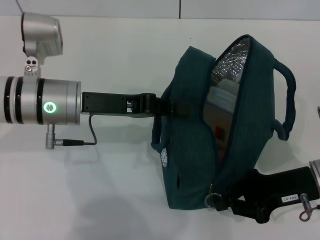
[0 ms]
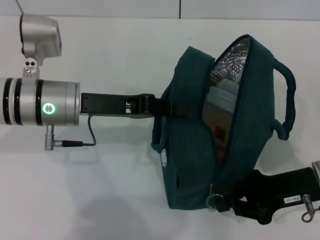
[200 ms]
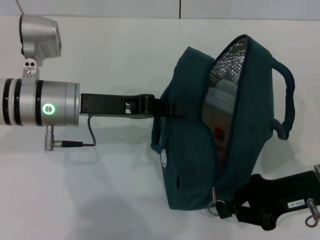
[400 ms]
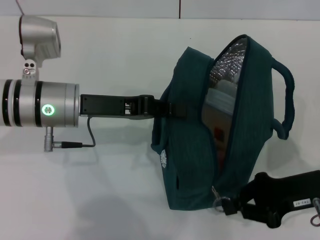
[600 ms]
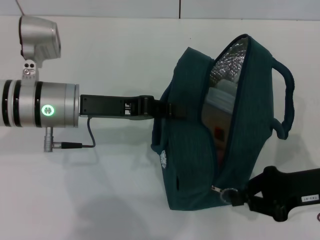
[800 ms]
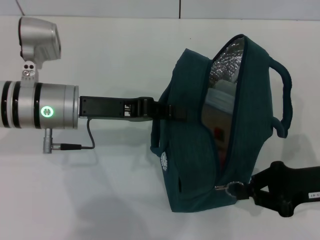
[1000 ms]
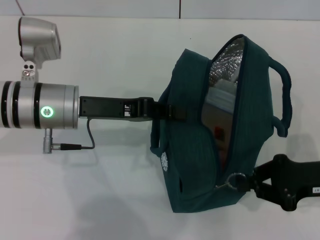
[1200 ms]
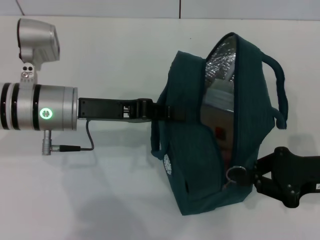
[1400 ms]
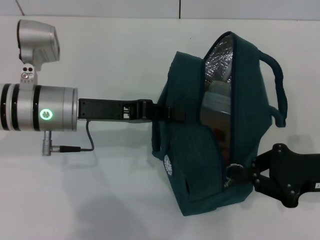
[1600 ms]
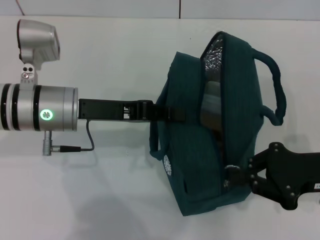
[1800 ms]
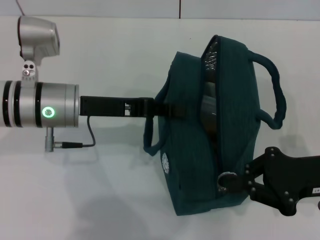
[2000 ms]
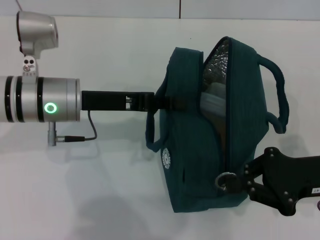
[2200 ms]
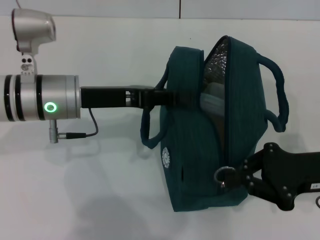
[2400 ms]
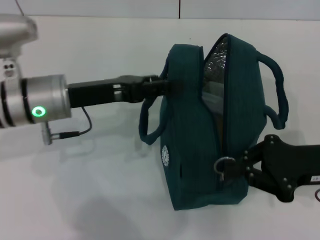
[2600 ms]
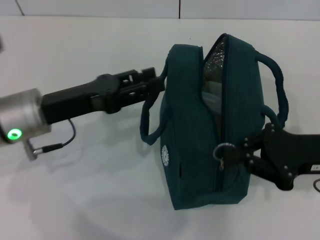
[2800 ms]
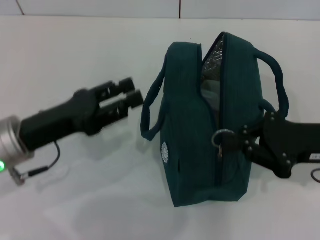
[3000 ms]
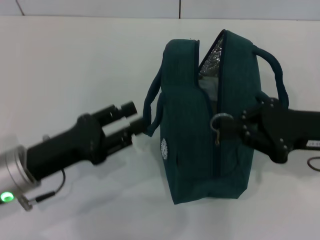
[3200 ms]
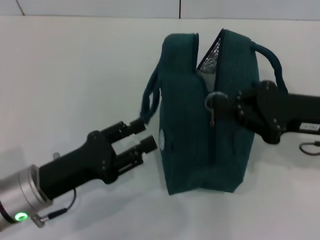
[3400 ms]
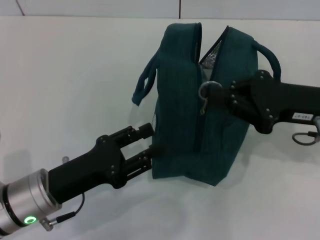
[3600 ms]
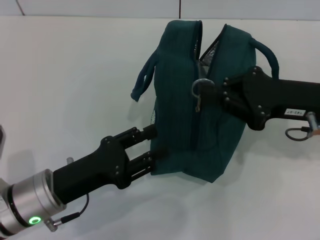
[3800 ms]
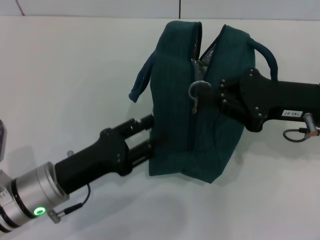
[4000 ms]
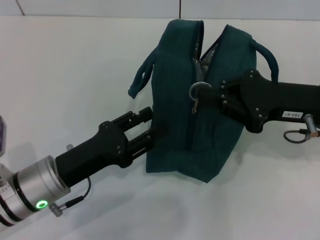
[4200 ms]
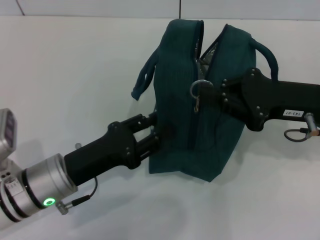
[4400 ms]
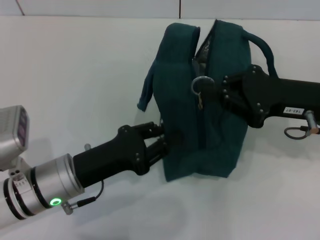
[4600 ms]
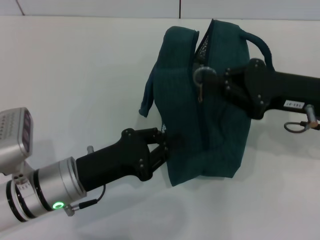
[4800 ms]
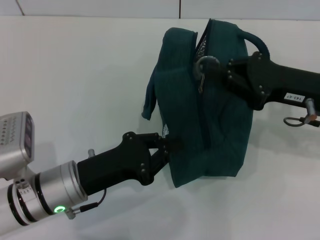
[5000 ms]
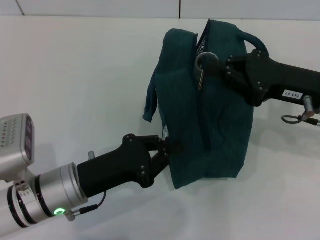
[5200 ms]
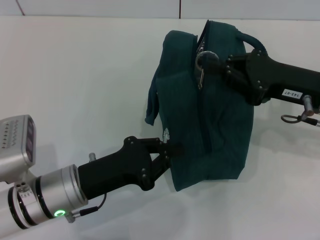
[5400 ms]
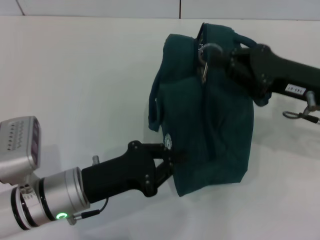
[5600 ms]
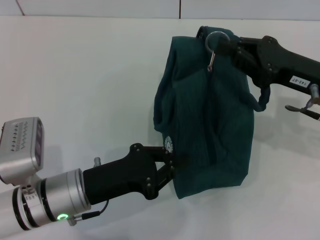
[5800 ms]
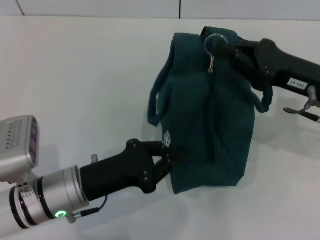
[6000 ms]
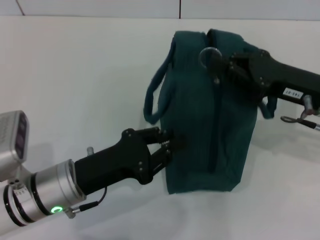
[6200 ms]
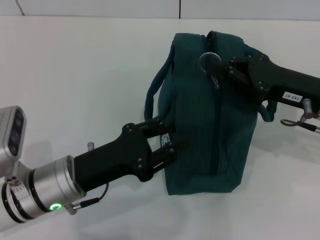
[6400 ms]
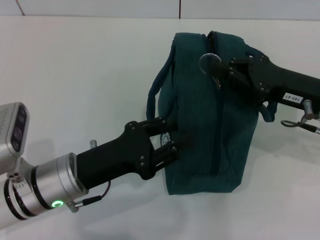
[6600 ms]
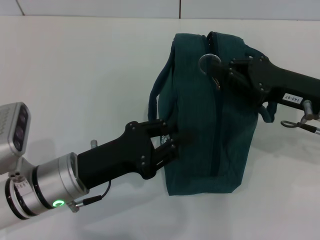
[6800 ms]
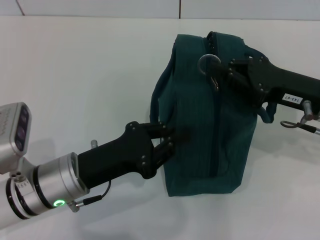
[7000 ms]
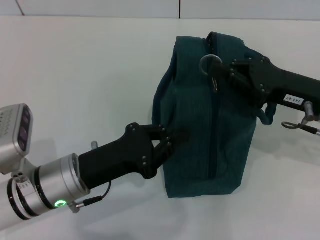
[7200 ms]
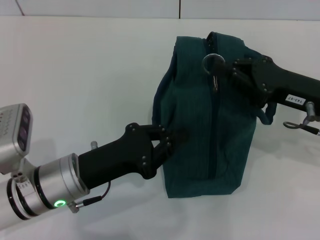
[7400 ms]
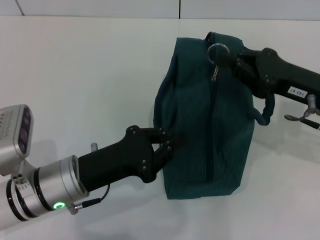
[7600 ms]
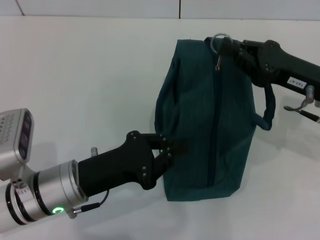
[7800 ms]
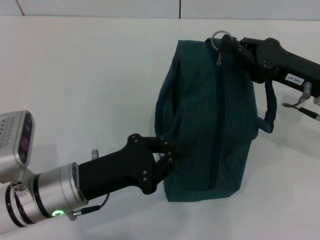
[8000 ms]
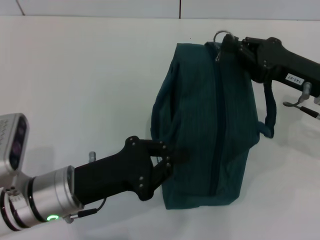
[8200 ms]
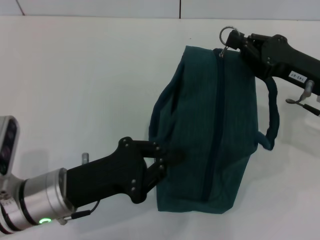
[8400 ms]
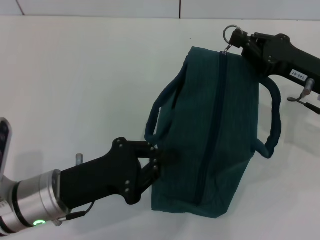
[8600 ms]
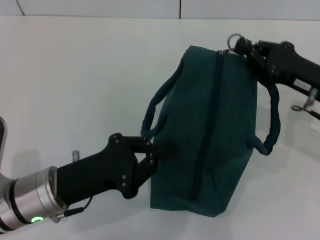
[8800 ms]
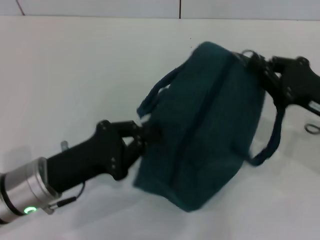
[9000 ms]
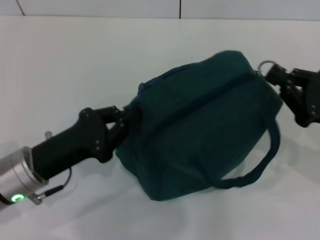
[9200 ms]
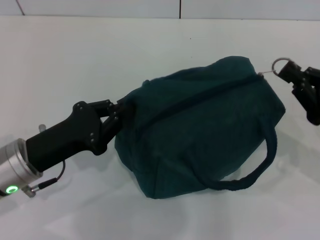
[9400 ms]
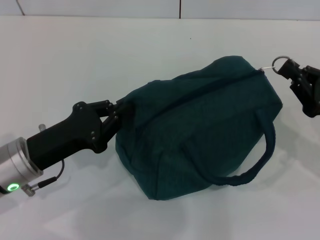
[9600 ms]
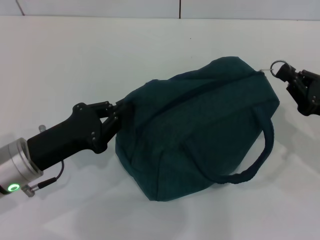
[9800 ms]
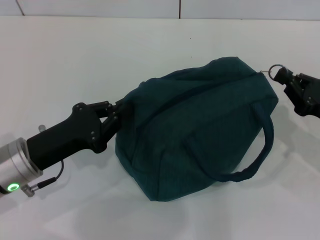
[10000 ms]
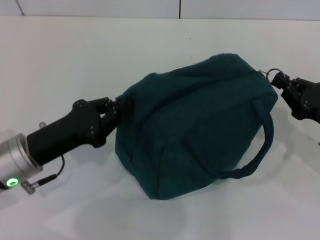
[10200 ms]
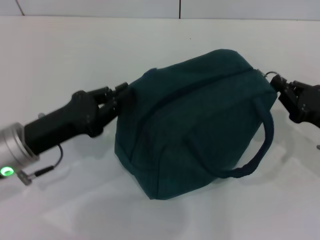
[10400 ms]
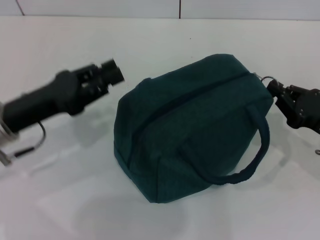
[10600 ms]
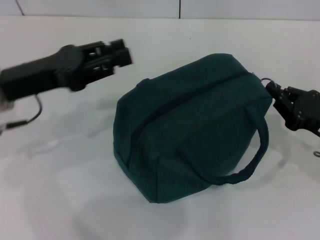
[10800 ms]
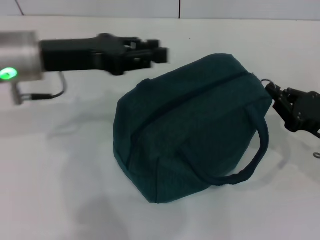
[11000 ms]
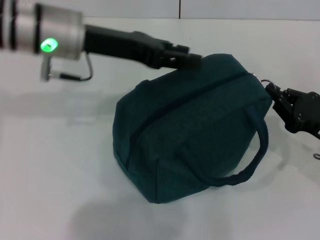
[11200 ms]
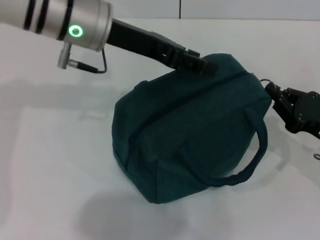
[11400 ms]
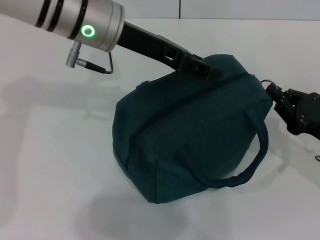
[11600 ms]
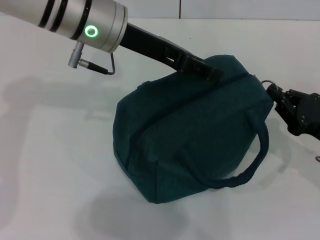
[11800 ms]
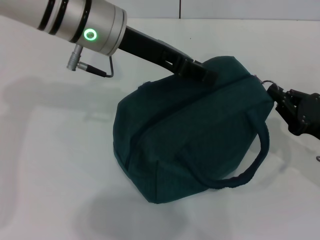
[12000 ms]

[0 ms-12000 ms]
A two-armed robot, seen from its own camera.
Step, 0 ms to 2800 ms: Hold the lunch bag with your left hand.
1600 ms to 3000 ms: The left gripper is displaced backward and to the left by about 10 cm, and opens up.
3000 ms to 4400 ms: The left gripper shifts about 5 cm downward.
4400 ms to 6000 ms: The left gripper closes up.
6000 ms to 9000 ms: The grippers stay close to where they were, moving slightly.
9000 ms to 10400 ms: The right gripper shifts by about 5 cm. The left gripper moves roughly 5 cm.
10400 ms to 12000 ms: The left gripper goes about 25 cm upward, to the right and forward, and opens up.

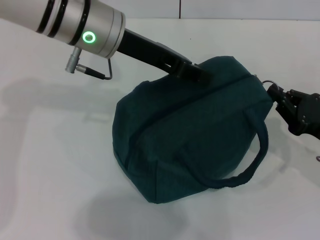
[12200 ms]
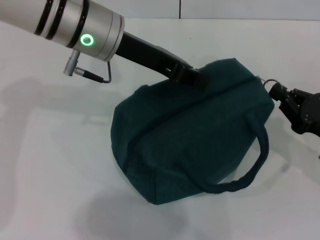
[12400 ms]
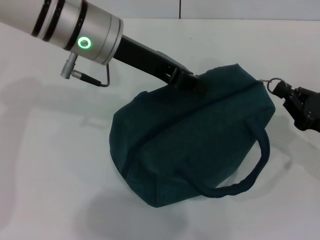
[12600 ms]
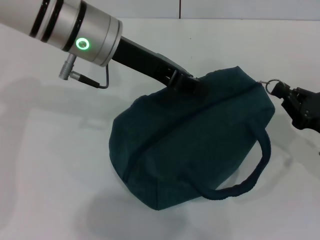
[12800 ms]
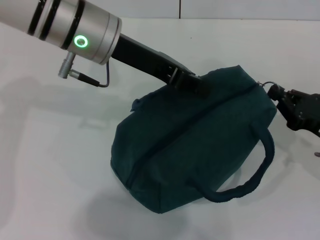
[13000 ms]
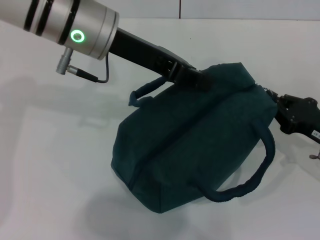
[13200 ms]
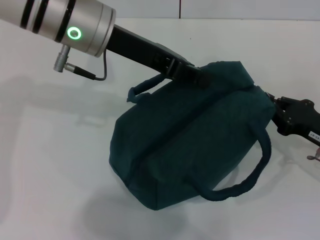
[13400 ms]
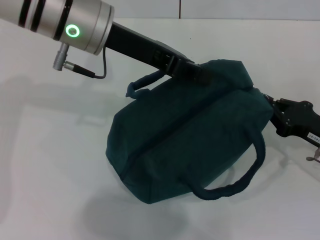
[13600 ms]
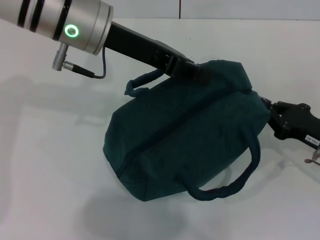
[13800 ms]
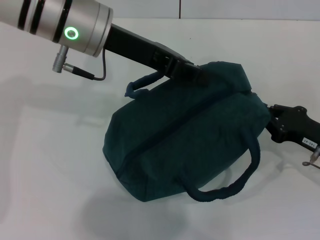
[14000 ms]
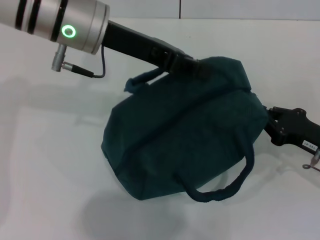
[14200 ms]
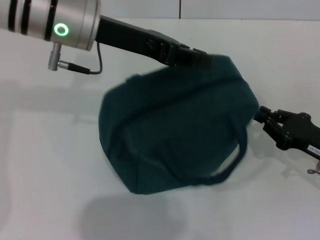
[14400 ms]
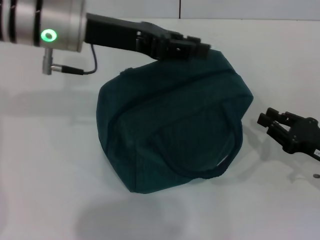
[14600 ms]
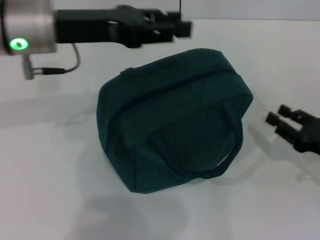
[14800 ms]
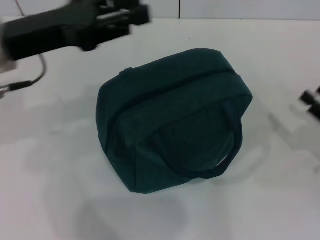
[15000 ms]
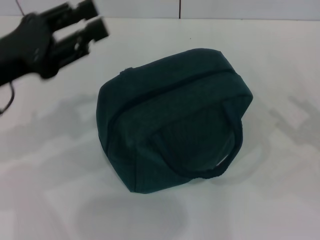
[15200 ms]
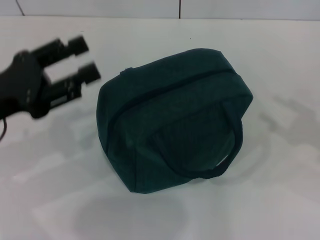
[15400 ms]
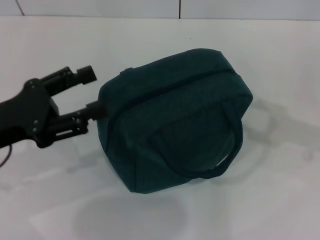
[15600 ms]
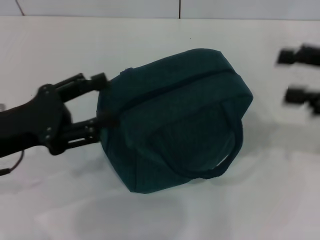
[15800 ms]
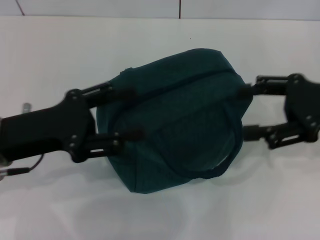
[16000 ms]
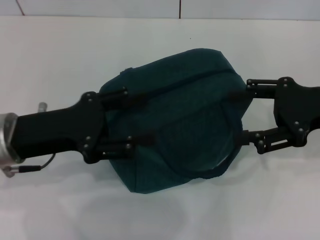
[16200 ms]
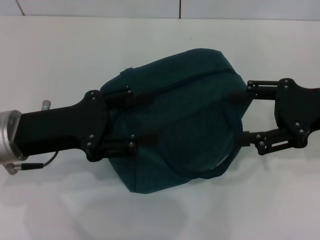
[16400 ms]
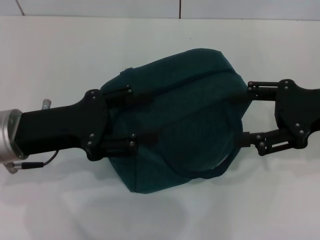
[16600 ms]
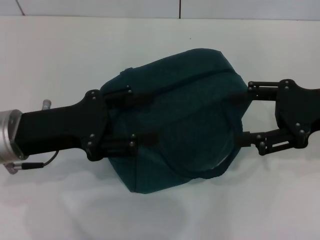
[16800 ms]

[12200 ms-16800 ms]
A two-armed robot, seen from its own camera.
Step, 12200 ms to 14400 ms: Zip up the lunch bag with your right hand.
12200 ms to 13800 ms: The left gripper closes up.
13800 ms to 15200 ms: The left gripper heads to the left and backward, covering about 15 cm, and opens up. The right gripper moves to the right, about 5 cm, and opens up.
15200 ms to 16800 ms: The right gripper shifts about 15 cm upward, to the left and forward. Meanwhile the left gripper ends up approximately 5 cm from where it was.

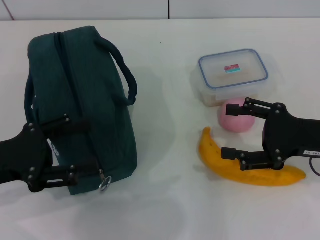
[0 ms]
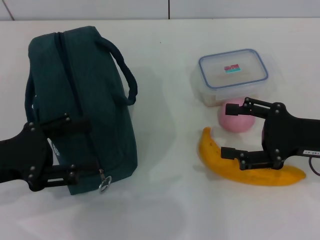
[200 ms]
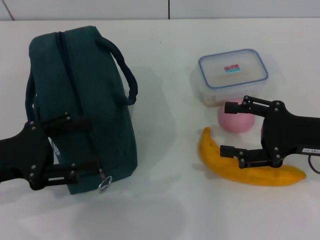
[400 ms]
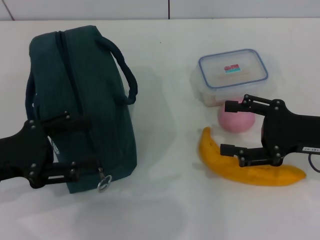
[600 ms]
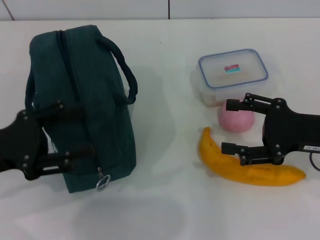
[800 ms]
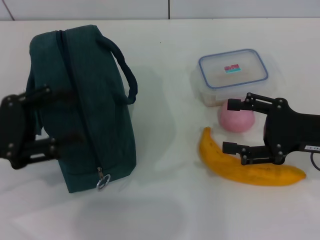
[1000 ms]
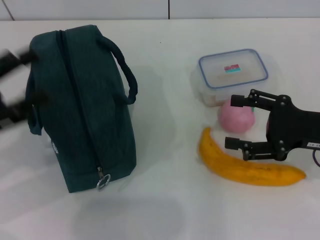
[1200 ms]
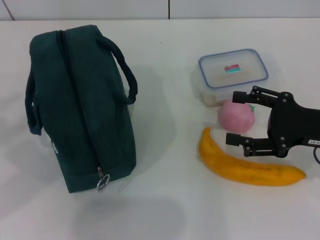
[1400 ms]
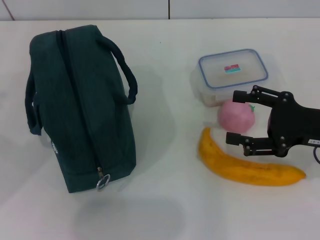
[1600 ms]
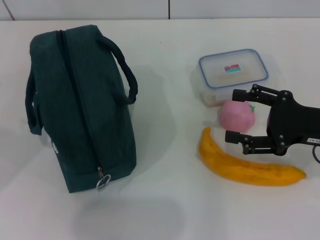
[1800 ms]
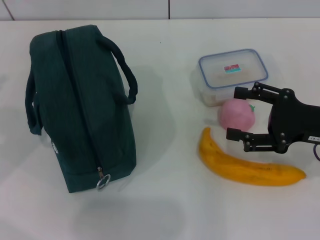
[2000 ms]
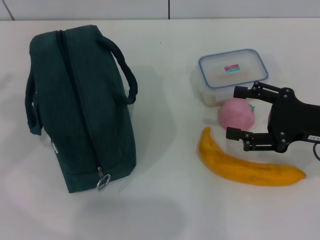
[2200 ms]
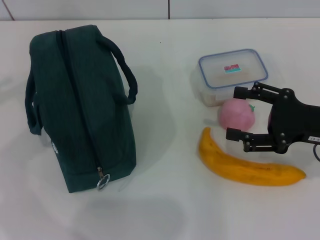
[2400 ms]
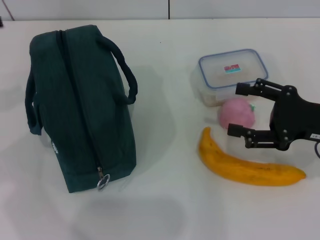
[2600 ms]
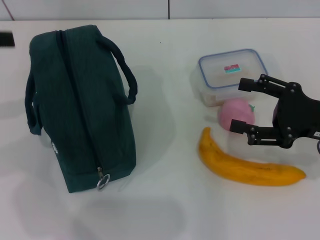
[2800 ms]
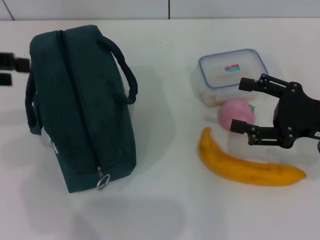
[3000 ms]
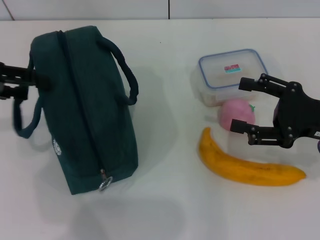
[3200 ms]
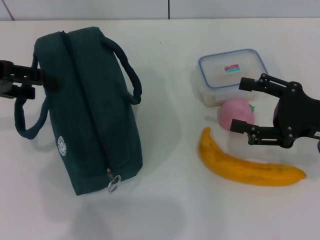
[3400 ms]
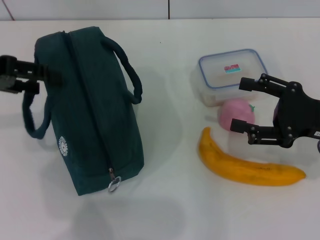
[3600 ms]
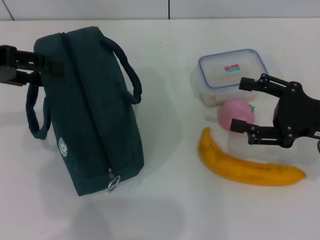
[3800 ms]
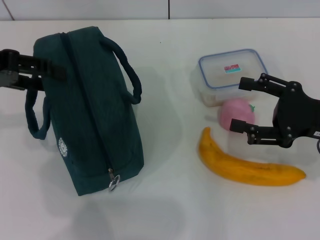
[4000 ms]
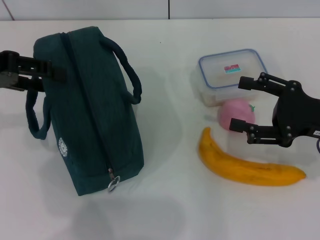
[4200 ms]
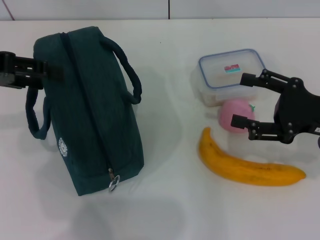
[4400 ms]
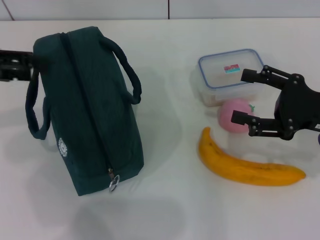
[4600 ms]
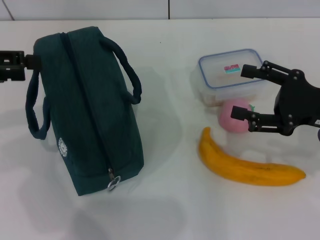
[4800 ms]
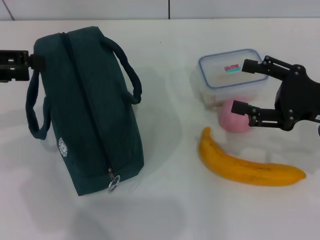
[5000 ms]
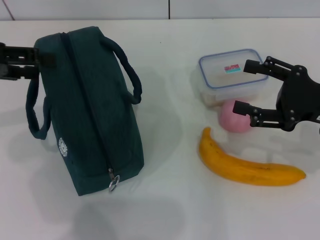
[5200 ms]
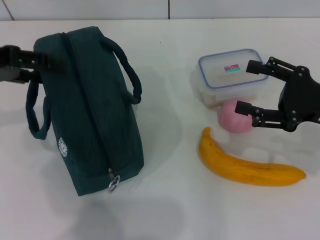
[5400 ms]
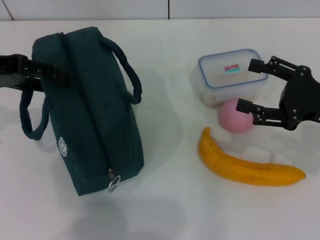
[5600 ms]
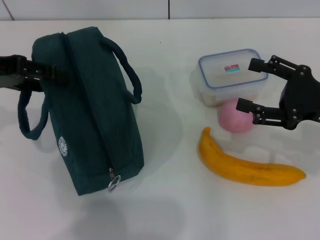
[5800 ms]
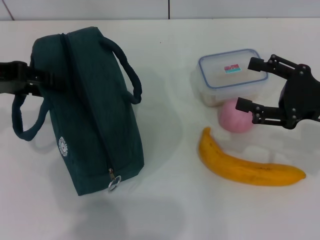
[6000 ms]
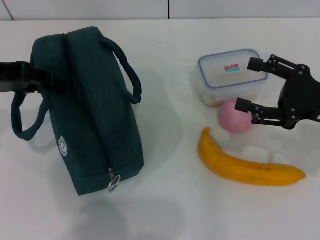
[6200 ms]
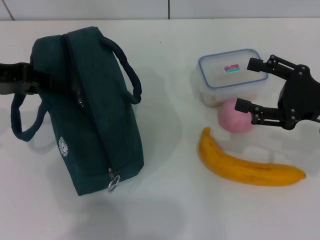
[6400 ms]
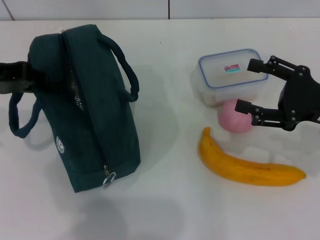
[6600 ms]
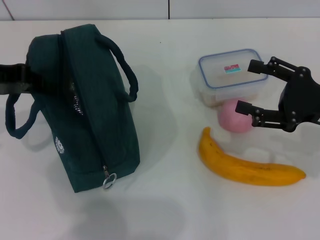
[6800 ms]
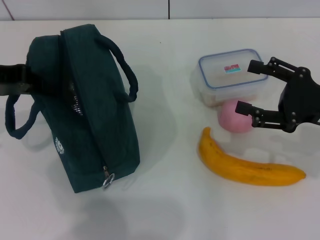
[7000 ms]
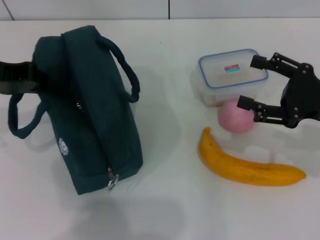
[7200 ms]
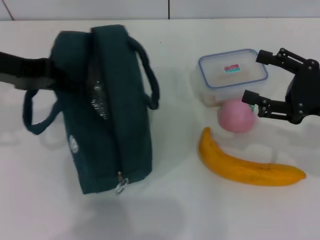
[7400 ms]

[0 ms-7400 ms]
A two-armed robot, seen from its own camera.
Step, 0 ms to 7200 ms: Hold the lunch bag with your left hand.
0 ms to 1400 ms: The left gripper is displaced to the left by approximately 5 cm.
1400 ms to 3000 ms: The left gripper goes about 10 cm upward and forward.
3000 ms to 6000 ms: There are only small adjustments of the grippers.
6000 ms to 7400 ms: The left gripper closes up.
